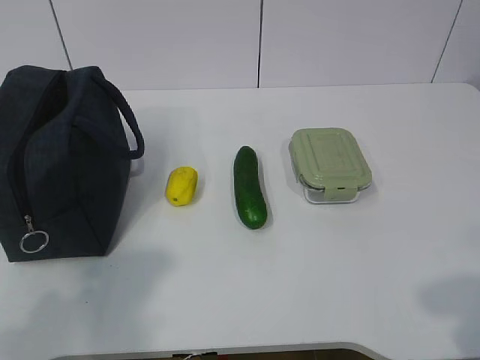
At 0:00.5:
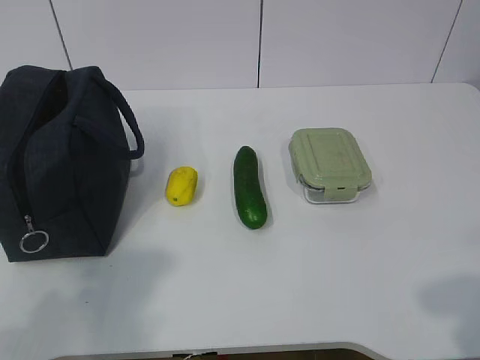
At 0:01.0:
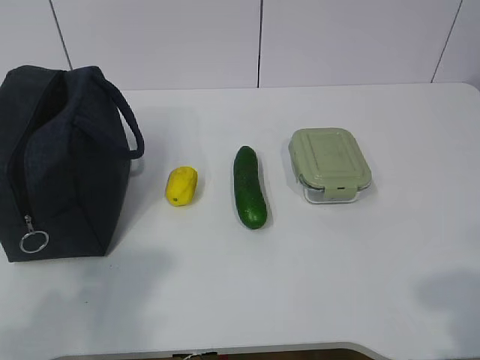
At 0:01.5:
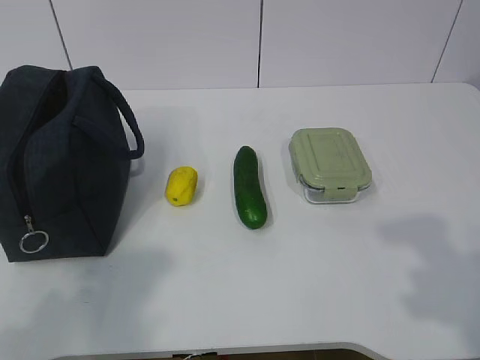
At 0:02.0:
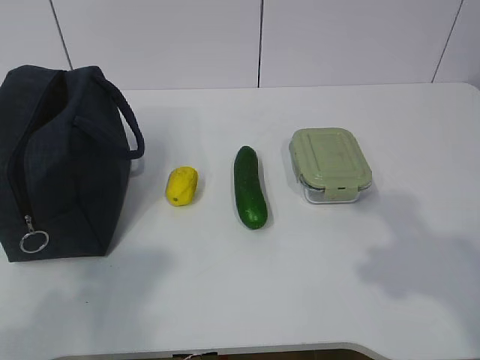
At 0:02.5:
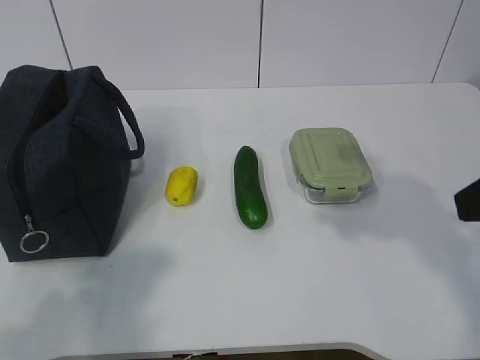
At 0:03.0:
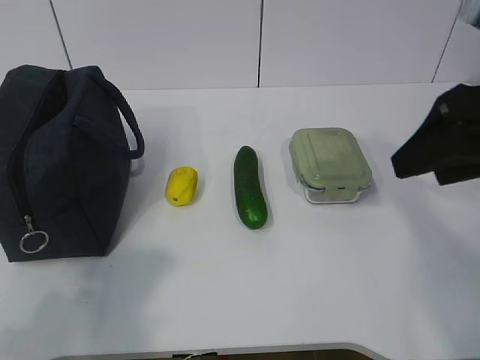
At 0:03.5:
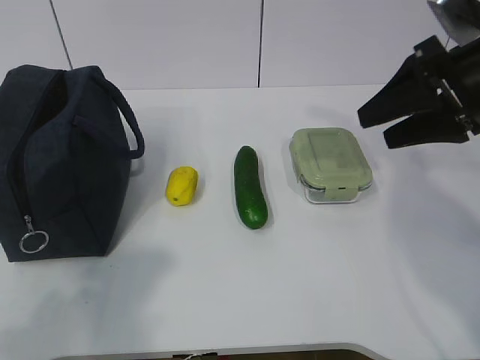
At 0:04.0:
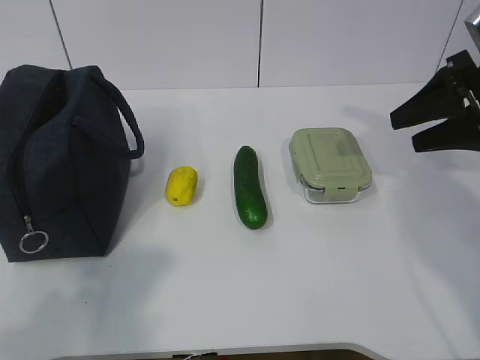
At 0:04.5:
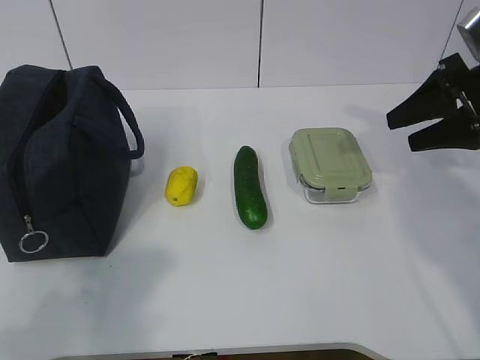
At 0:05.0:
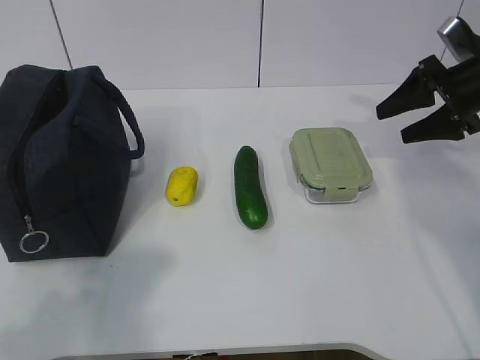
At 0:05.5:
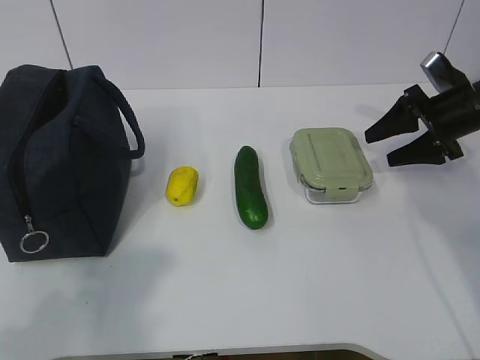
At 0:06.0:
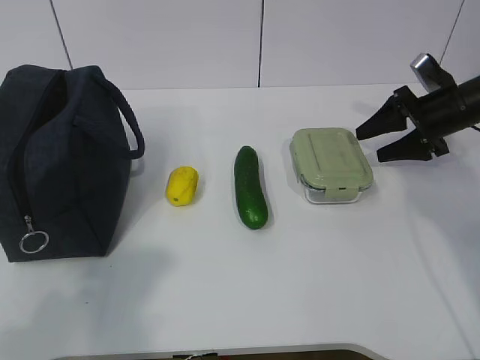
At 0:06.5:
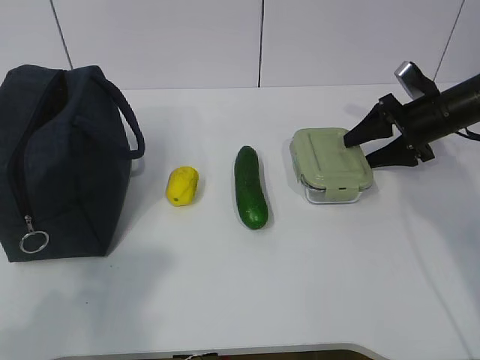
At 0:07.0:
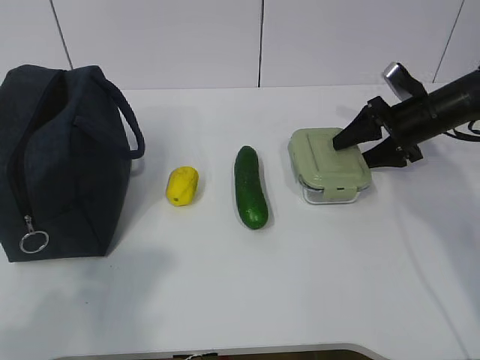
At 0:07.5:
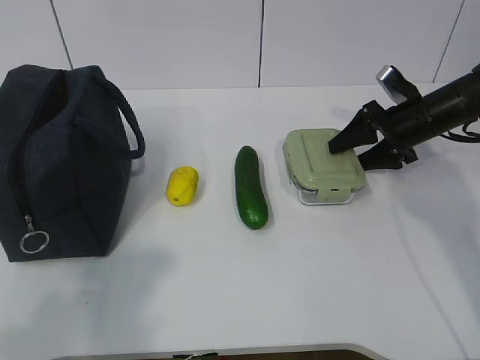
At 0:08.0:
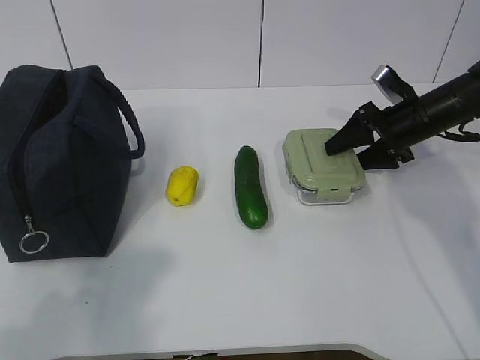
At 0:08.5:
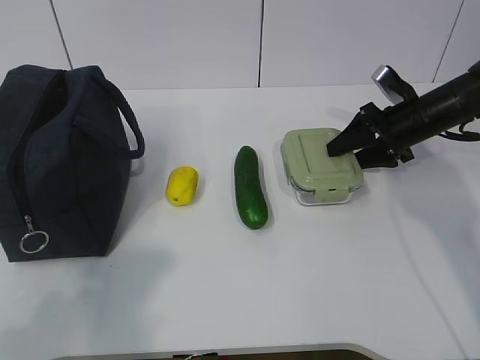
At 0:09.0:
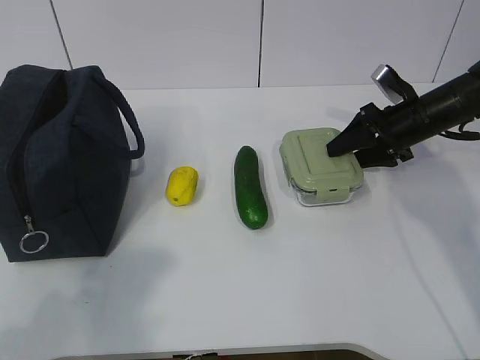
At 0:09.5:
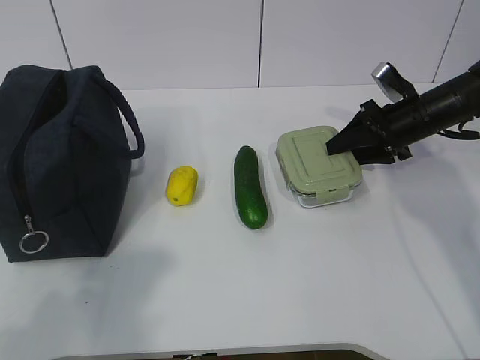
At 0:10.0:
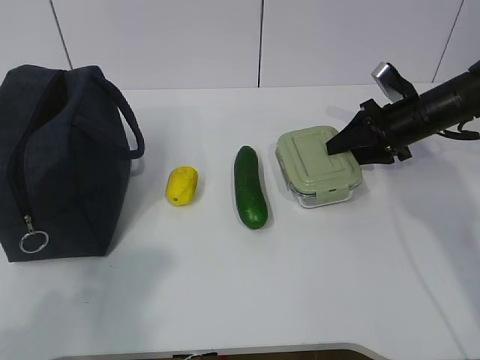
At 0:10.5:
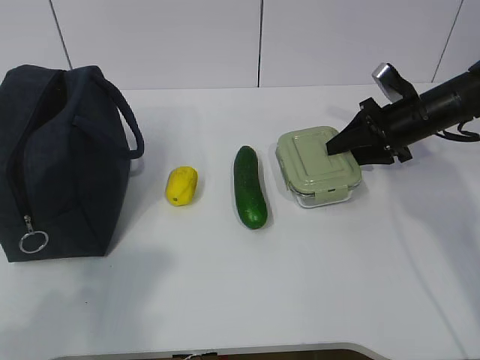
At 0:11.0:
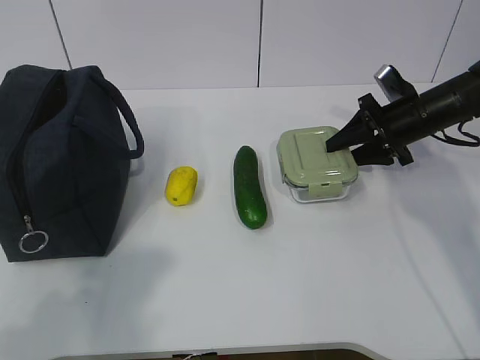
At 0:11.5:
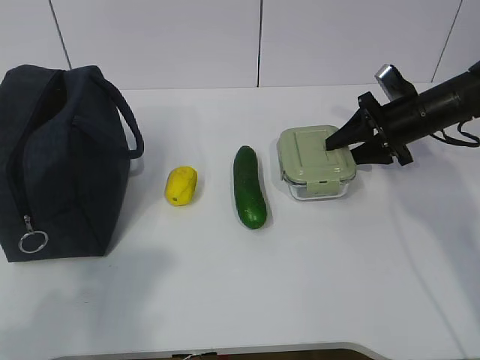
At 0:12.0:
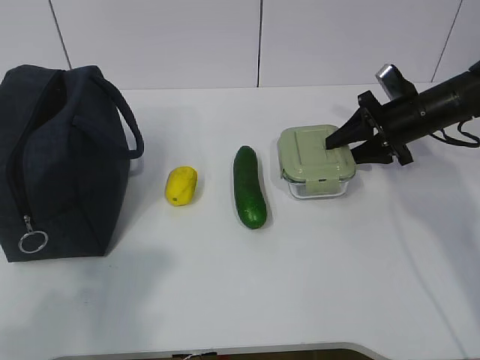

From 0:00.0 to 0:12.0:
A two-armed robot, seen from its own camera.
Step, from 0:00.0 to 0:10.0: Grab the lunch box with your right hand.
From 0:02.0 to 0:04.0: The right gripper travels forward by approximately 25 cm.
From 0:04.0 to 0:06.0: The right gripper goes some 15 cm forward and downward.
From 0:06.0 to 0:08.0: There are only small adjustments of the grippers.
From 0:08.0 to 0:10.0: Neither gripper changes place.
From 0:10.0 to 0:12.0: The grippers stay close to where they were, moving slightly.

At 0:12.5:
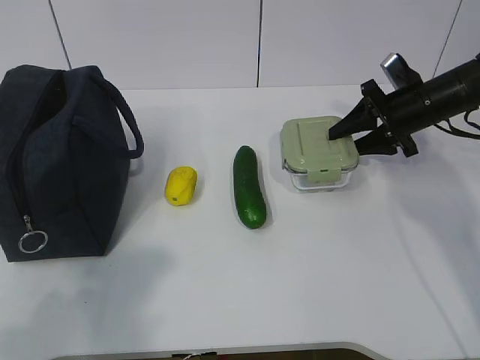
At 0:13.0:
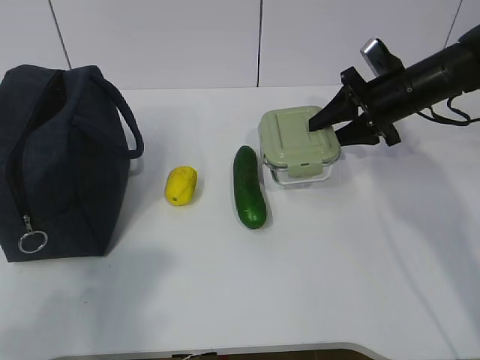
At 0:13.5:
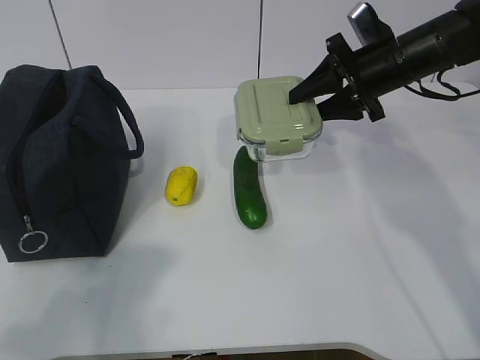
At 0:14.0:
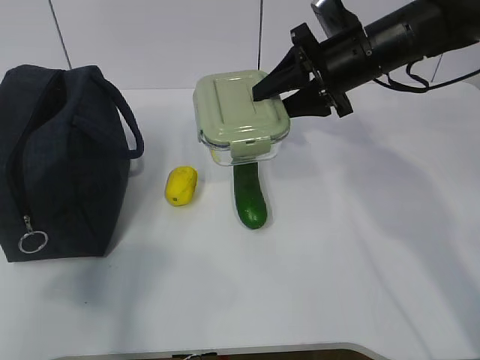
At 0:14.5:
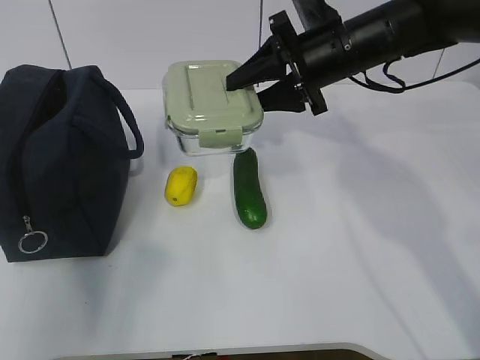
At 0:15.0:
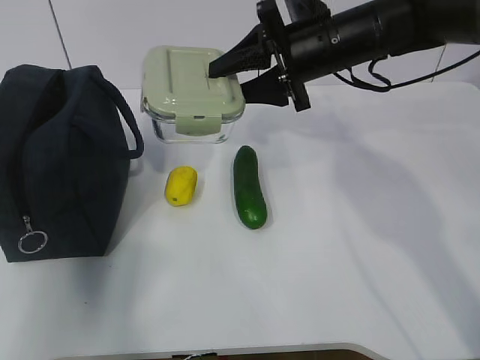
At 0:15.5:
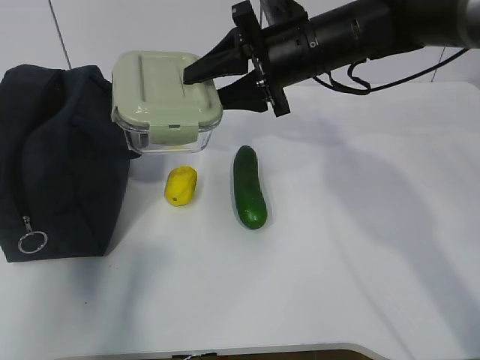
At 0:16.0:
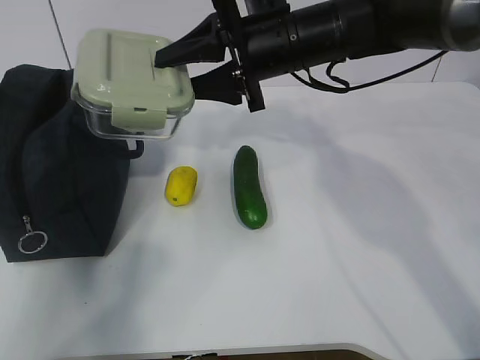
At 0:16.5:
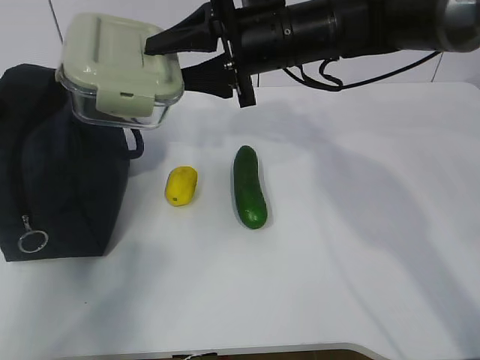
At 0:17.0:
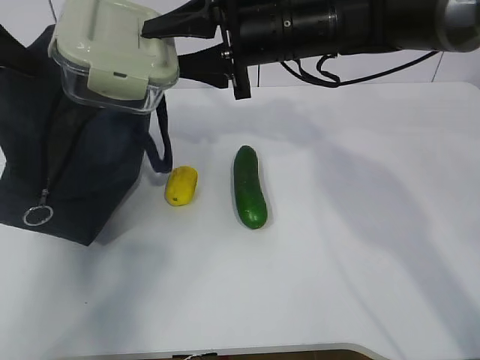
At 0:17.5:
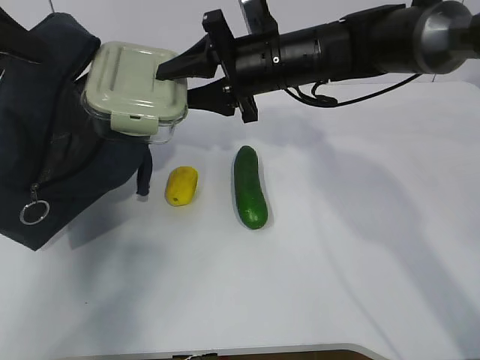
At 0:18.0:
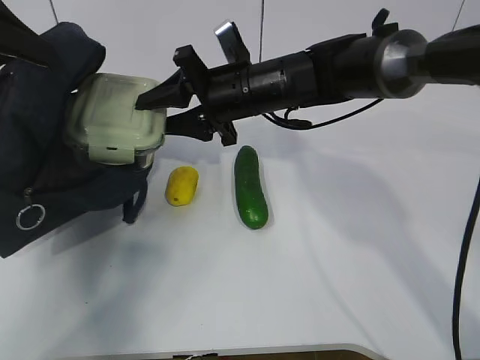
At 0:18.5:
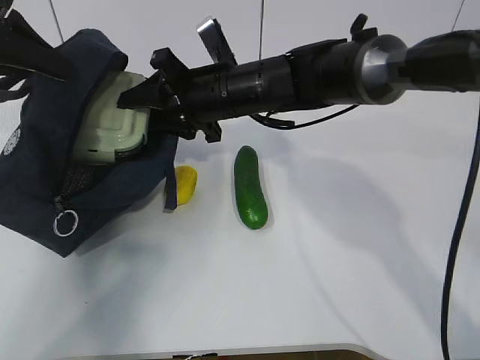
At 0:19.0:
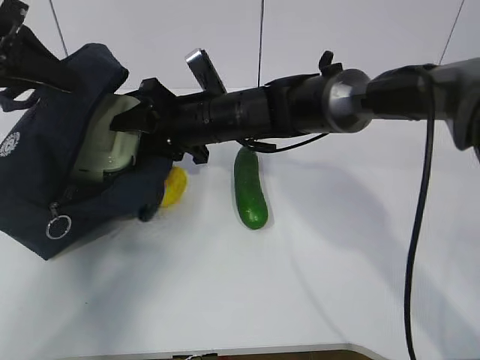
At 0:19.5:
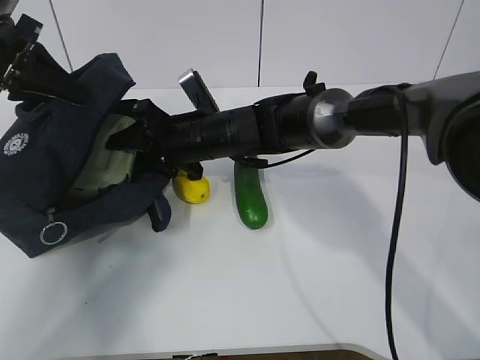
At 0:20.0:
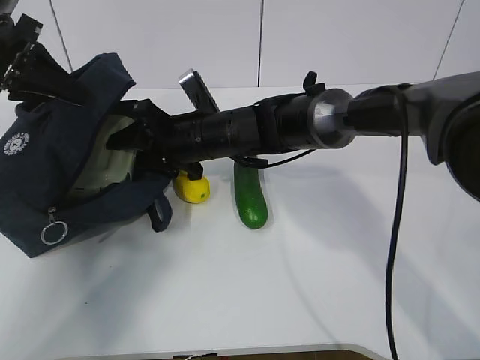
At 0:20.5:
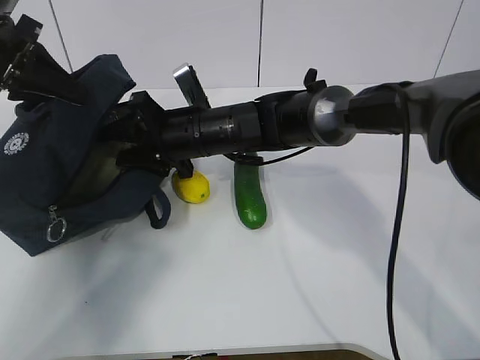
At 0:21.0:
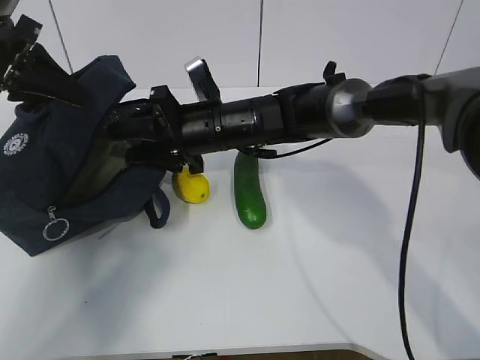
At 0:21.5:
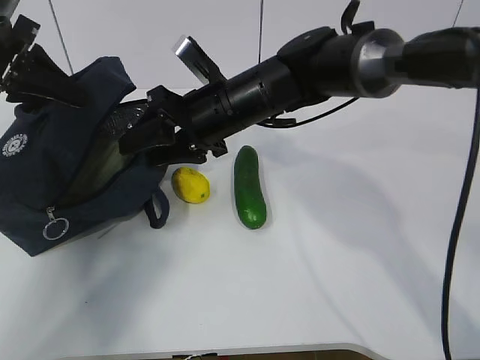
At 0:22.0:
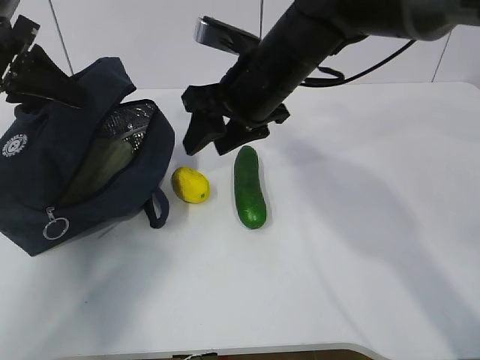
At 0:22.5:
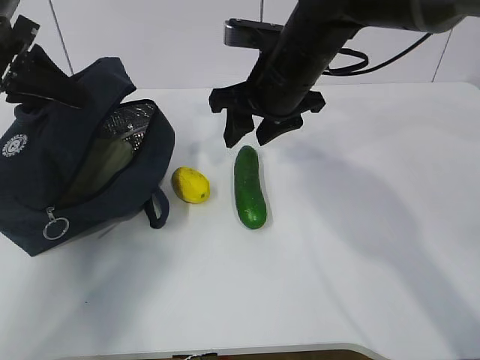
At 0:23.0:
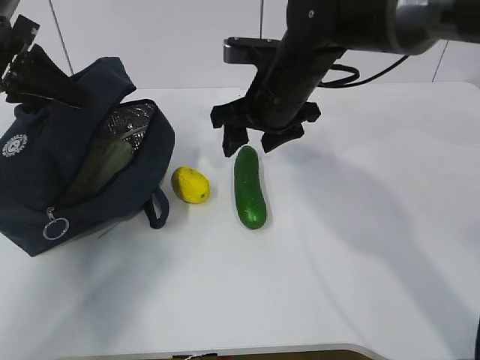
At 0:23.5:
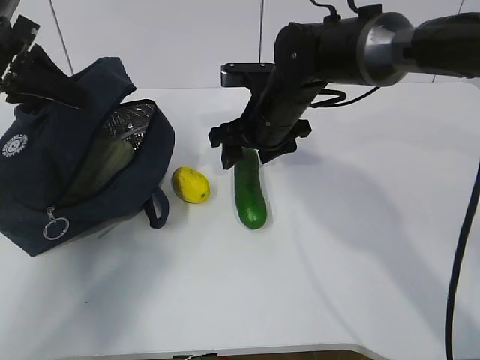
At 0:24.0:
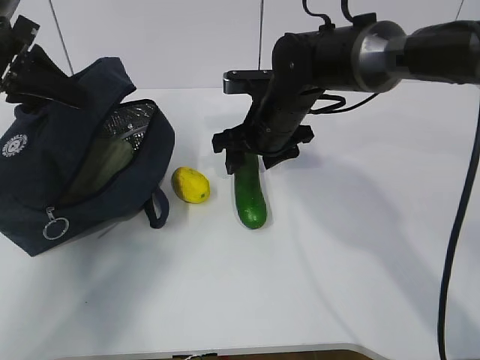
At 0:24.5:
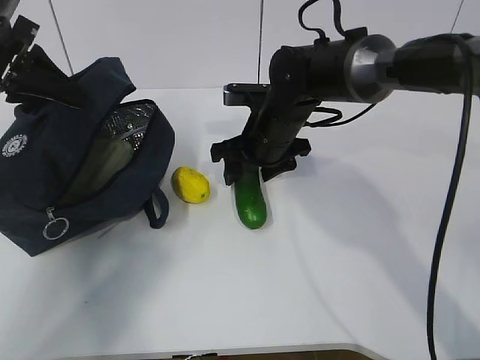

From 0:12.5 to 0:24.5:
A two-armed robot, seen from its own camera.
Step, from 0:14.5 to 0:16.5: Place it into the bag with your right hand.
Step, from 0:17.0 to 0:21.0: Grab the cucumber with your right hand.
Step, from 0:21.5 to 0:24.0: Place it into the bag with your right hand.
From 0:12.5 to 0:14.5: The right gripper goes about 15 cm to the left and upward; the left gripper goes about 15 cm forward and upward.
From 0:14.5 to 0:16.5: The right gripper heads to the left, covering approximately 5 cm, while the left gripper heads forward, covering about 25 cm, and closes up.
From 0:16.5 to 0:18.5: The right gripper heads downward and to the left, covering approximately 10 cm; the left gripper moves about 5 cm.
From 0:18.5 to 0:20.5: The right gripper shifts roughly 5 cm downward.
From 0:20.5 to 0:22.5: The right gripper goes some 15 cm to the right and upward.
From 0:22.5 to 0:24.5: The right gripper moves downward, about 10 cm.

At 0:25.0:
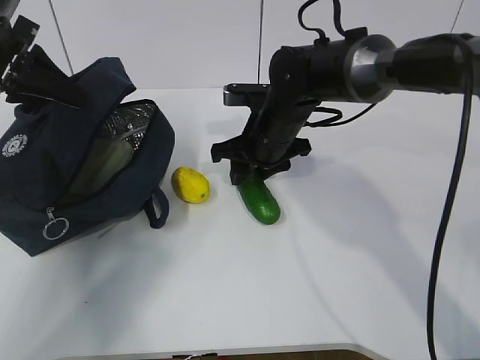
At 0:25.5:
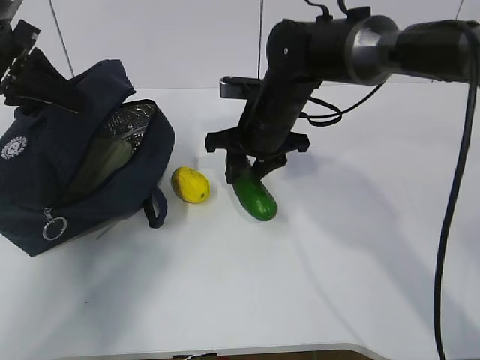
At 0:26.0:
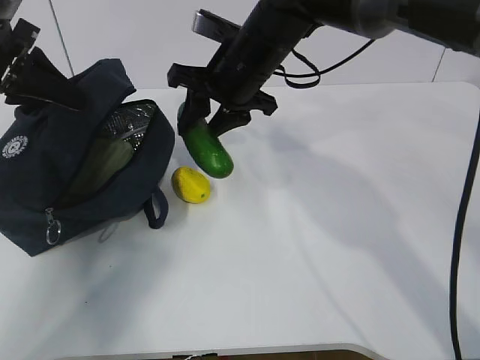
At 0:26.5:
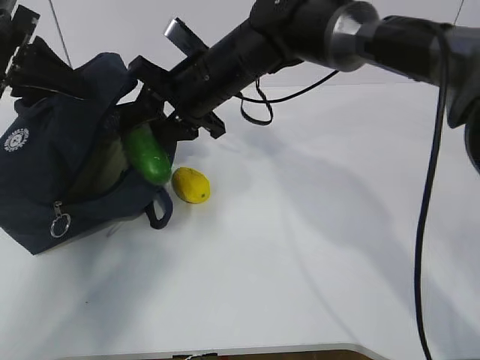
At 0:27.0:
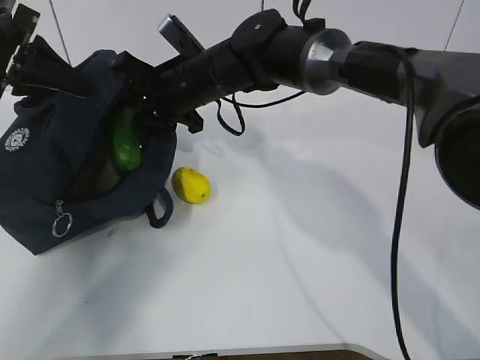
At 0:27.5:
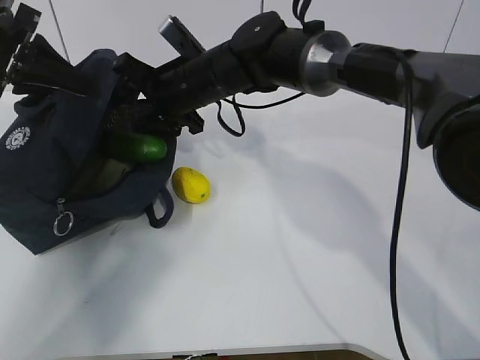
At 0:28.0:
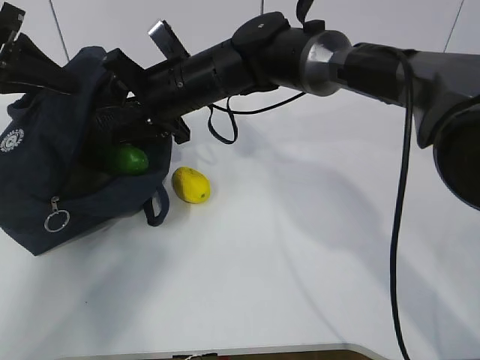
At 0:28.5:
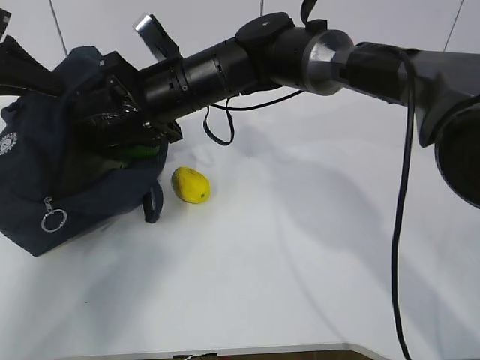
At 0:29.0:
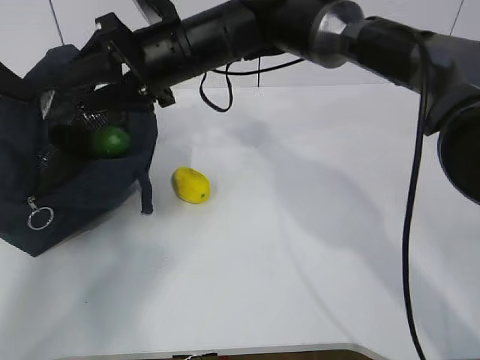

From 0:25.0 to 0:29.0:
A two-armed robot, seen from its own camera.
Step, from 0:25.0 to 0:27.0: Grab the lemon with your right hand.
Step, from 0:27.5 to 0:29.0: Secure the lunch bag with your left hand.
From 0:25.0 to 0:27.0: The right gripper shifts approximately 10 cm to the left and upward.
From 0:27.0 to 0:29.0: The left gripper moves to the left, approximately 5 cm; the right gripper moves approximately 5 cm.
